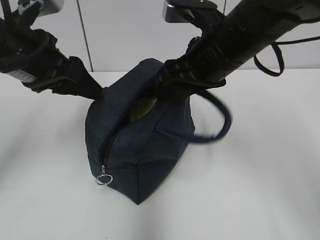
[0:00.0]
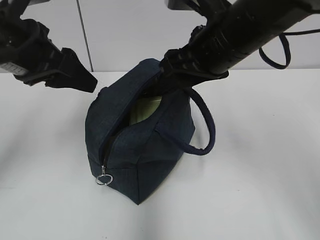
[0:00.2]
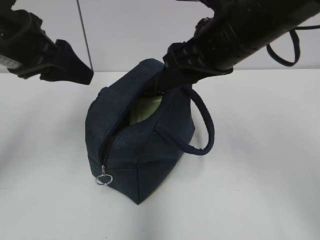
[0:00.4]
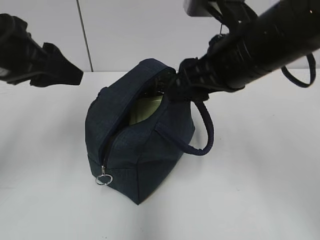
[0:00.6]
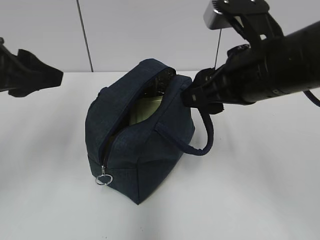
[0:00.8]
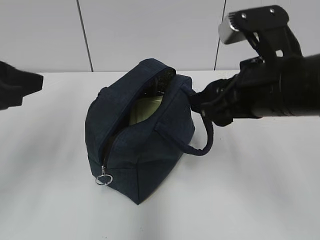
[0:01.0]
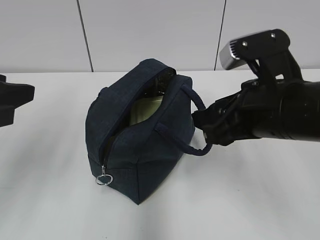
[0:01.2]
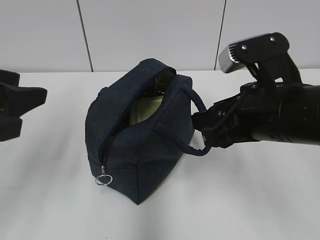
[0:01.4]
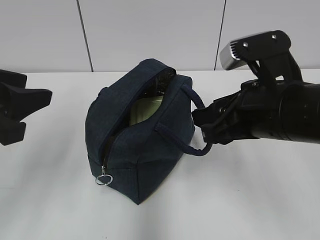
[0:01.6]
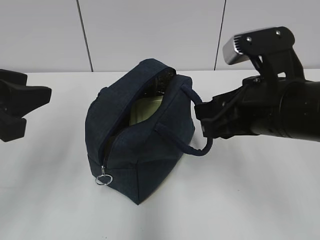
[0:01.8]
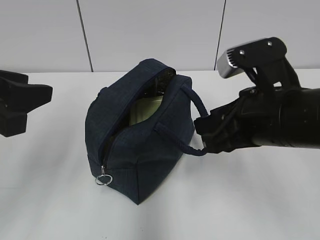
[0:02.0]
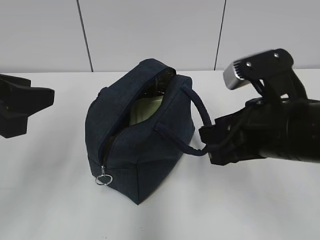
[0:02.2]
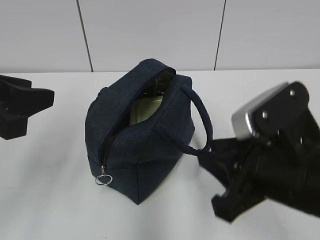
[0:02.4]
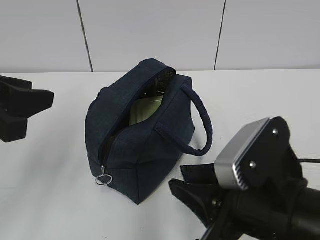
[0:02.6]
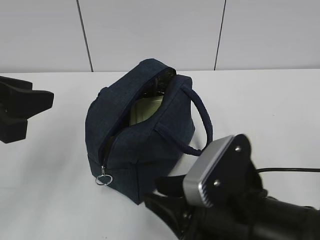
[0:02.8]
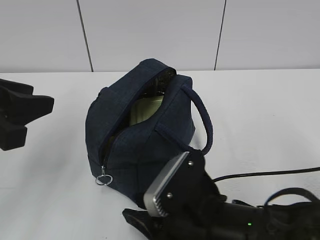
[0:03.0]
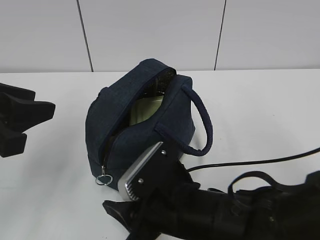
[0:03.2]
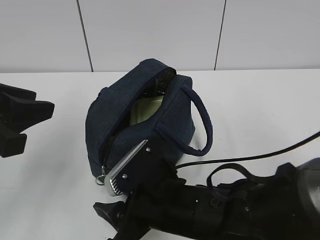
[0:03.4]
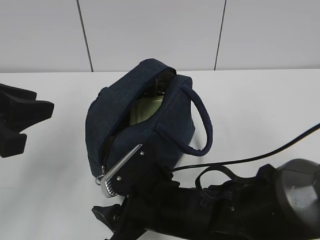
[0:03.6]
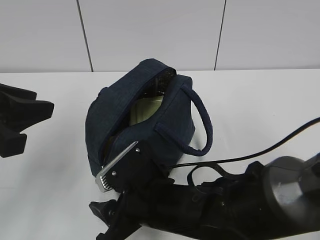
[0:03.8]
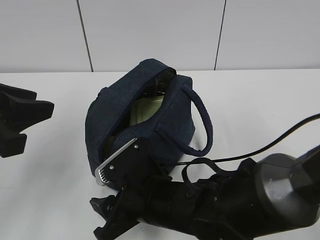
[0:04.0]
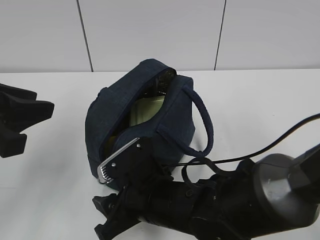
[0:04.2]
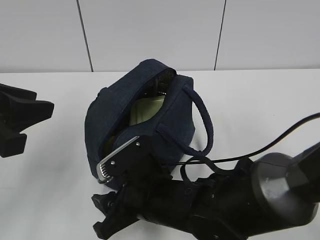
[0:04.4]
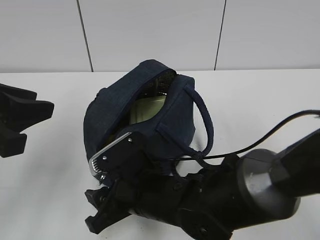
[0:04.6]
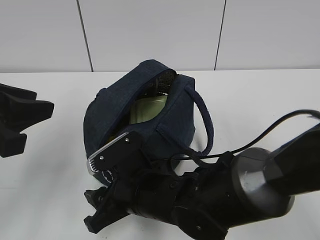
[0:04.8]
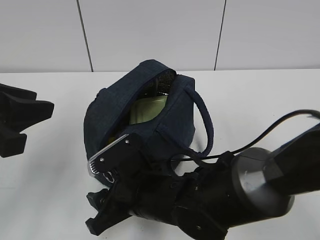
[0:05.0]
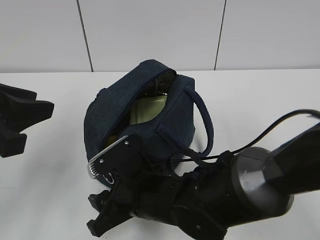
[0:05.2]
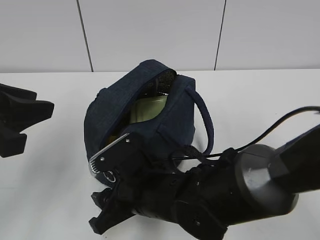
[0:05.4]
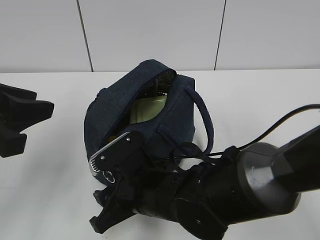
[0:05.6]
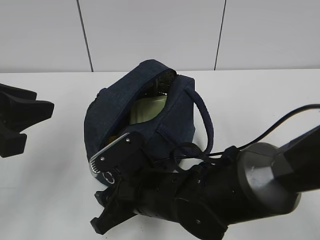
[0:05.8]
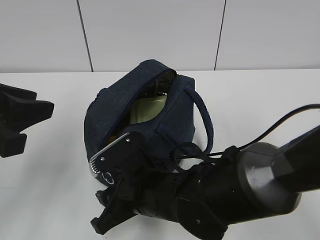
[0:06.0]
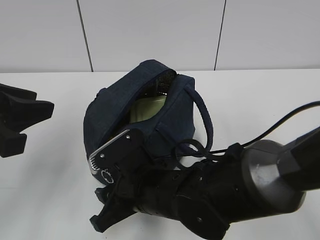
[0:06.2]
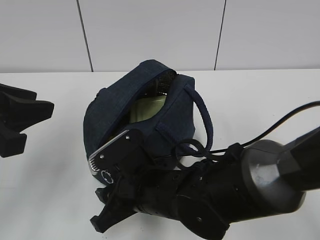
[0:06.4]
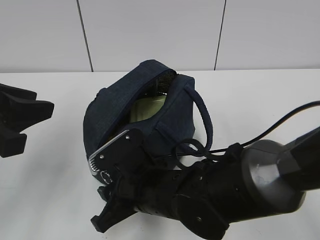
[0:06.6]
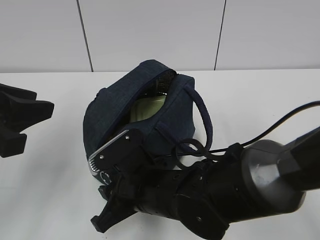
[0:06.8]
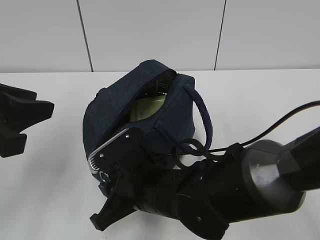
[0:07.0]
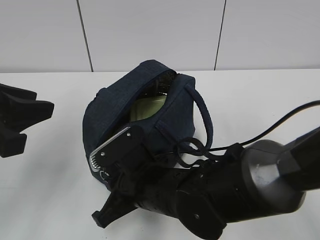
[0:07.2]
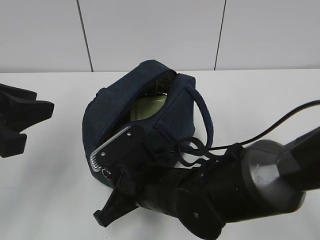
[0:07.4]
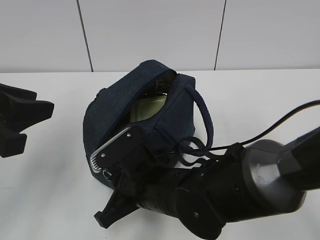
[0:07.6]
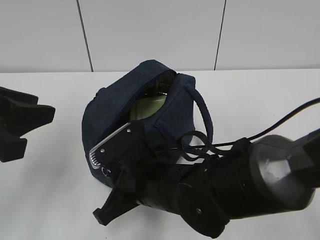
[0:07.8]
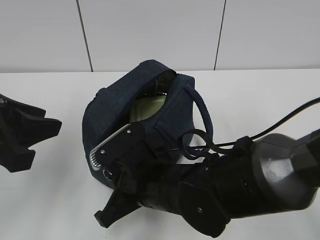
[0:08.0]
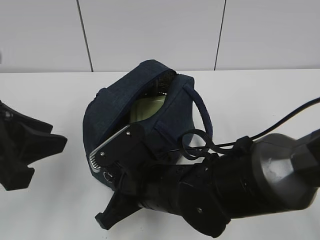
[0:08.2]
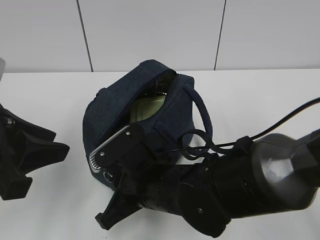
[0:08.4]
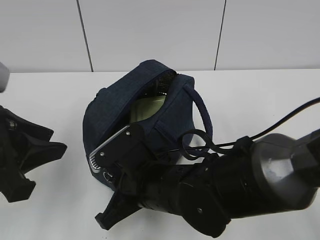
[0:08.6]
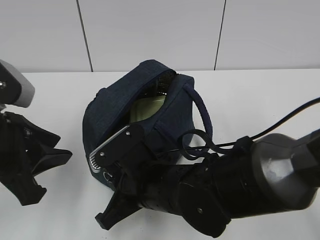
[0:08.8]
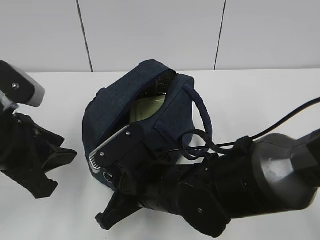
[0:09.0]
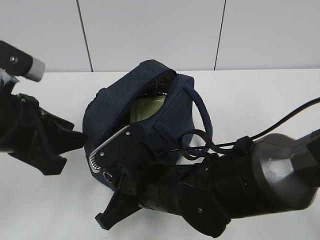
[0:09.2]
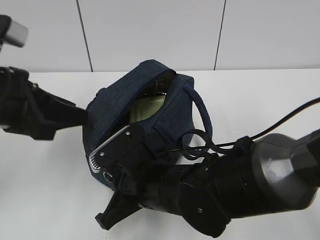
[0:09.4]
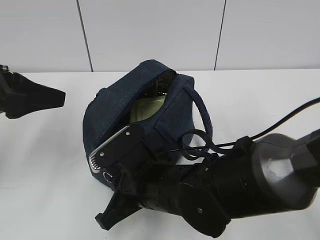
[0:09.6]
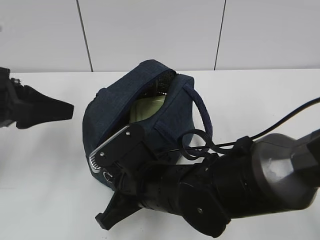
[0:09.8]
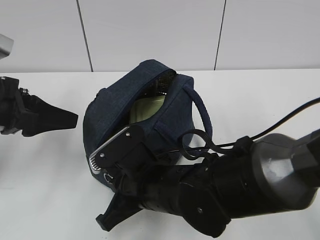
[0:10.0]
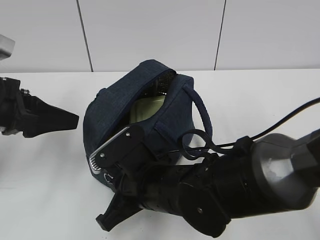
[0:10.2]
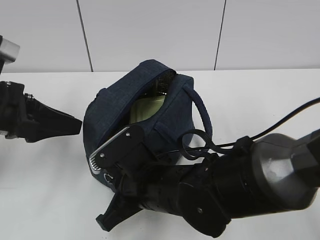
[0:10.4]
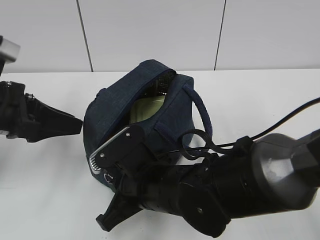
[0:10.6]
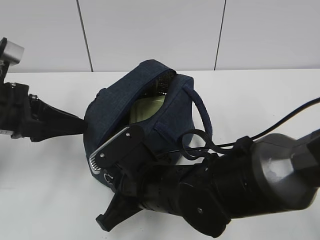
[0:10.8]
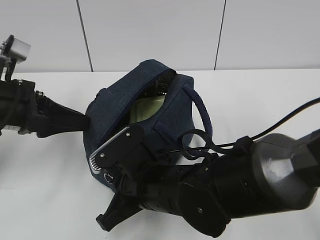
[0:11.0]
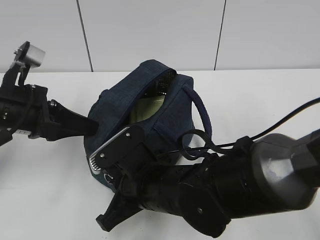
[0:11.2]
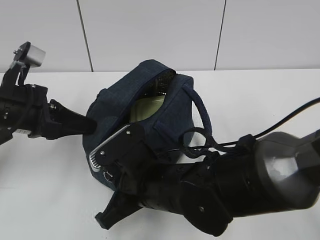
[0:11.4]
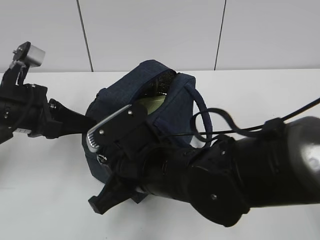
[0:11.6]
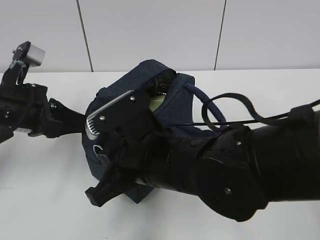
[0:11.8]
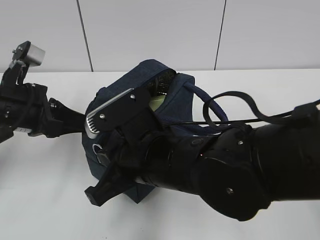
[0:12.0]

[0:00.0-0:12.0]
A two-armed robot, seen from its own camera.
0:00.0 to 0:01.6: Both grippers travel together backward, about 10 cm.
0:01.6 to 0:03.0: The right gripper goes about 15 cm downward, to the left and backward.
0:03.0 to 0:04.4: The right gripper goes some 10 cm to the left and forward, and opens its fingers.
0:04.4 to 0:06.0: The grippers stay close to where they were, moving slightly.
0:06.0 to 0:07.6: The right gripper closes.
0:07.6 to 0:09.0: The left gripper is displaced downward by roughly 5 cm.
0:09.0 to 0:10.4: The left gripper is displaced forward by about 5 cm.
0:10.4 to 0:12.0: The right gripper is displaced upward by roughly 5 cm; the left gripper closes up.

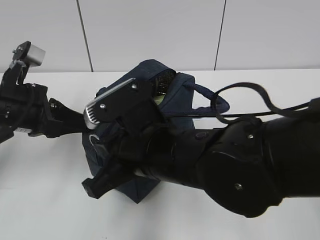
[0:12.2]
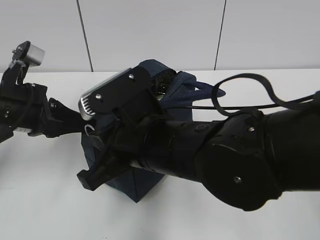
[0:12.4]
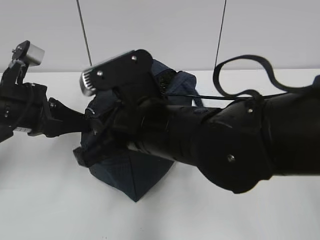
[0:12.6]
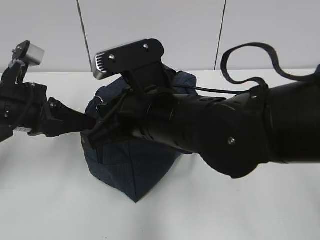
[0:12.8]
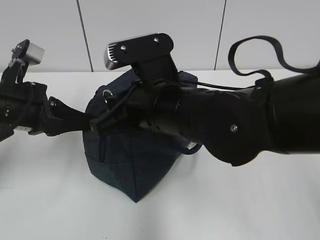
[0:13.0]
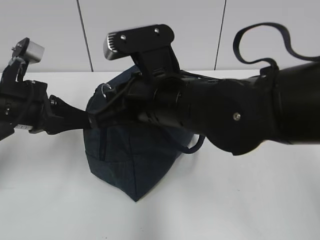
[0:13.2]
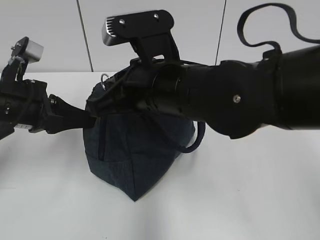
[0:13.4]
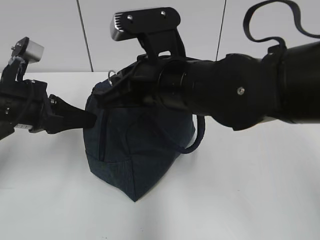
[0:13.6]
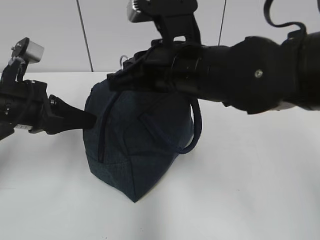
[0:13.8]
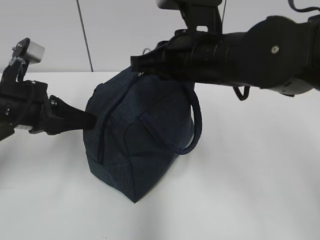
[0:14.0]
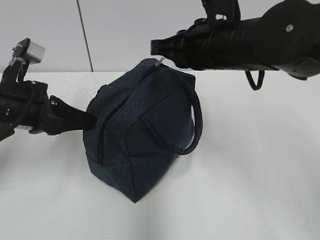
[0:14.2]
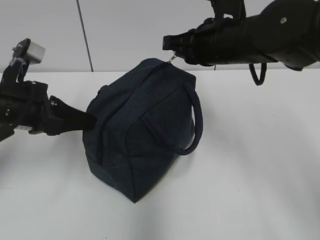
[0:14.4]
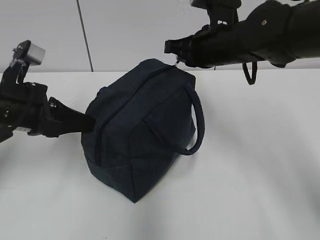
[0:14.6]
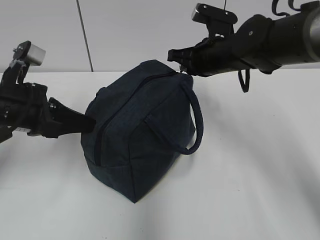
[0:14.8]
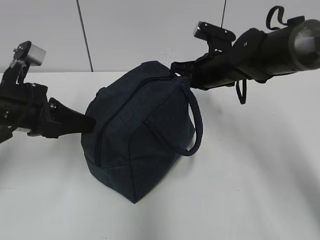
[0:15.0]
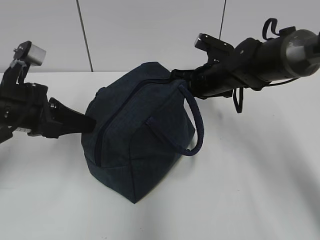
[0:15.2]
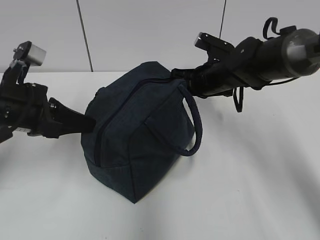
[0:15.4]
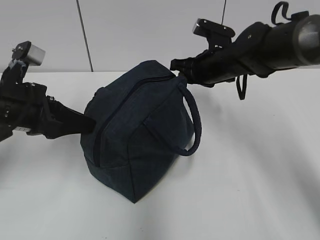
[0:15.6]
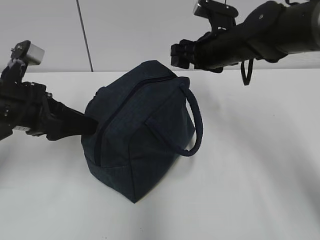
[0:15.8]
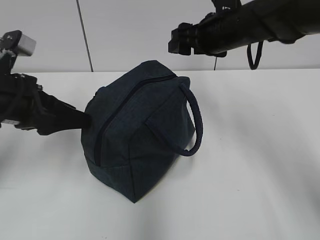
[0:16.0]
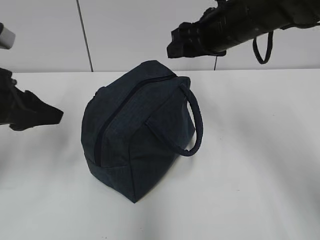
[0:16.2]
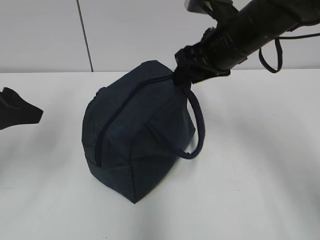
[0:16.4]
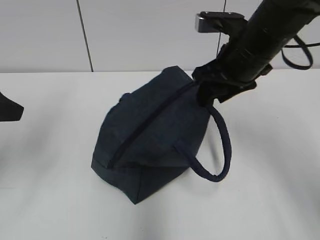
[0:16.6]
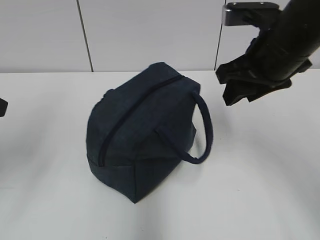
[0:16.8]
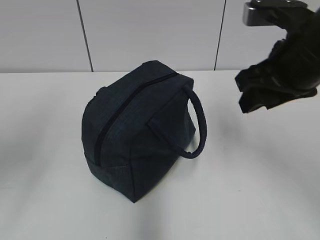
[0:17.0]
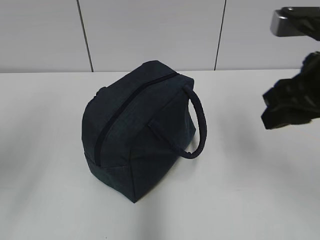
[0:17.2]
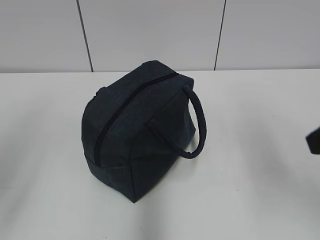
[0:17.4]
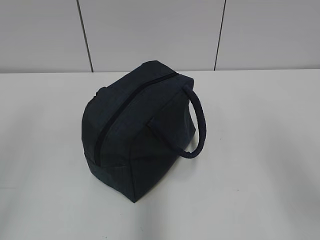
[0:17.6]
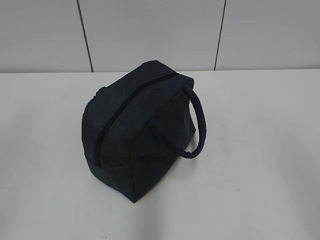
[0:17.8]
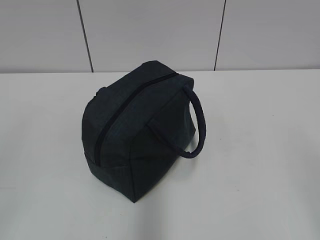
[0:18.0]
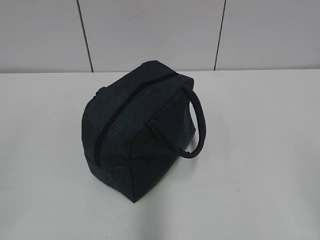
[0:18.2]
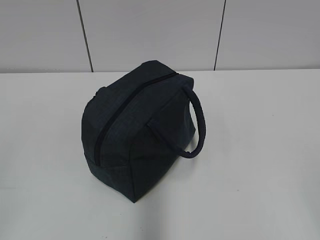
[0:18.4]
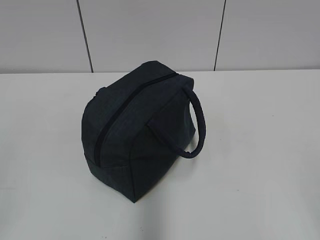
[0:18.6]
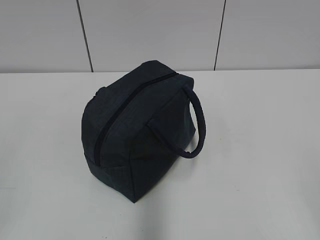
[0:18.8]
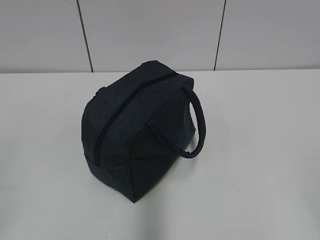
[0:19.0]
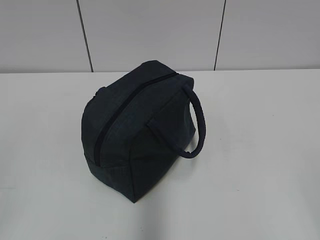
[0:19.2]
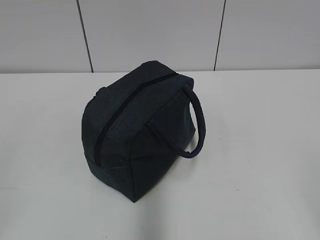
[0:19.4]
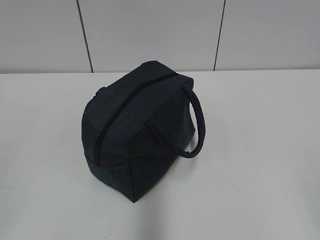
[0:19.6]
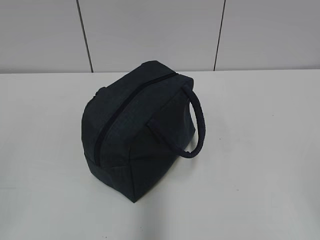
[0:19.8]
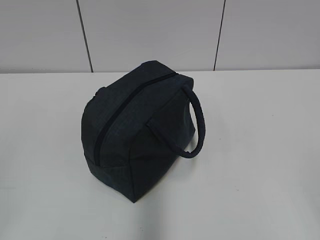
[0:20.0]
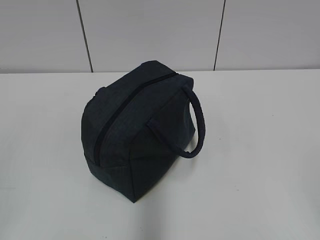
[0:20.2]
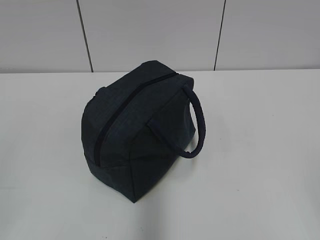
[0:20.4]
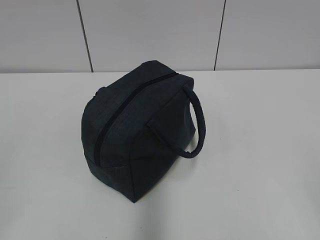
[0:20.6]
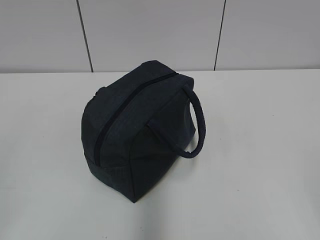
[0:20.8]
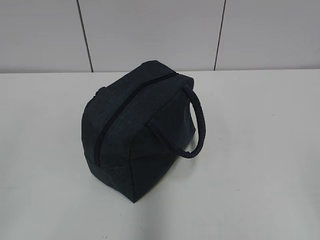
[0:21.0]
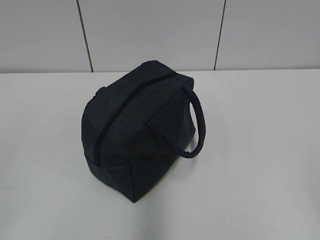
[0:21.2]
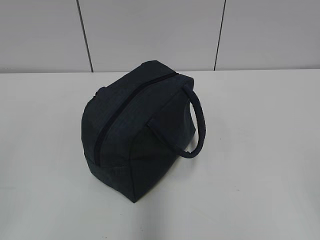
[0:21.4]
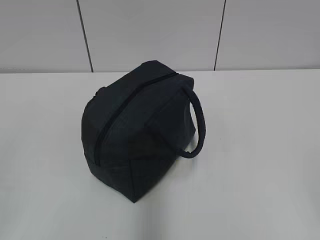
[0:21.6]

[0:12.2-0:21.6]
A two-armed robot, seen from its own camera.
Step, 0:12.2 to 0:15.6: Pull the zipper with your right hand.
0:12.2 to 0:13.8: The right gripper heads upward and forward, covering approximately 10 cm.
0:13.8 to 0:15.4: The right gripper shifts some 20 cm forward, downward and to the right.
0:15.4 to 0:17.0: The right gripper shifts approximately 20 cm backward and upward, and opens up. Meanwhile the left gripper moves upward, backward and to the left, roughly 15 cm, and opens its fingers.
0:17.0 to 0:18.4: The right gripper moves backward and to the right, roughly 30 cm. The left gripper moves backward, approximately 20 cm.
0:18.4 to 0:20.0: Both grippers stay put.
0:20.0 to 0:21.6: Both grippers stay about where they are.
